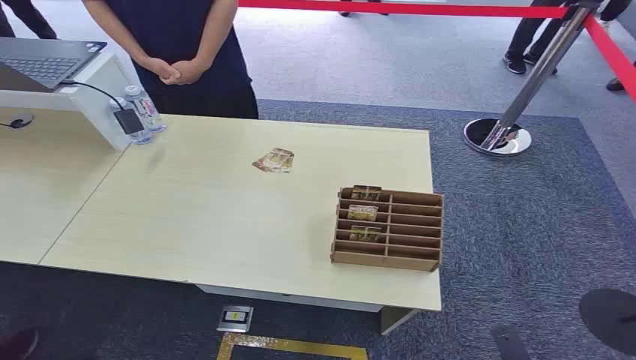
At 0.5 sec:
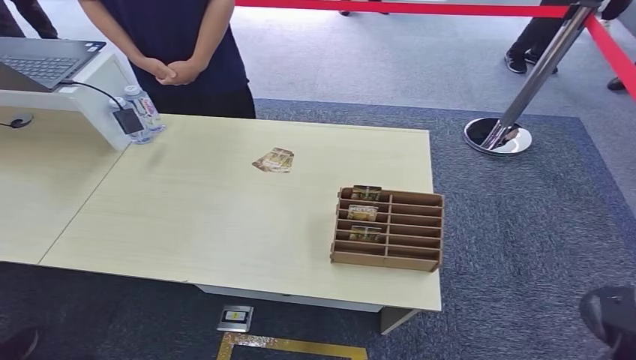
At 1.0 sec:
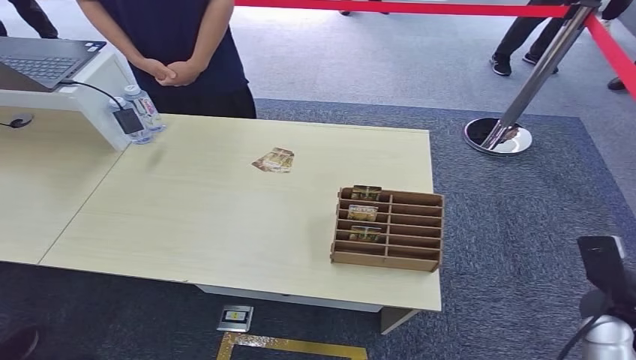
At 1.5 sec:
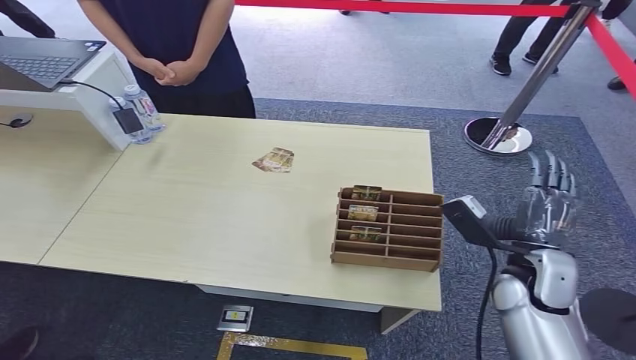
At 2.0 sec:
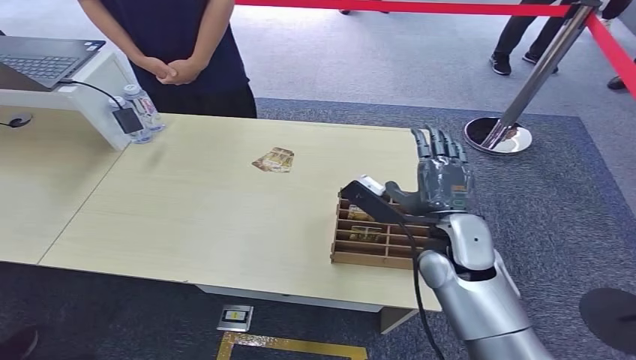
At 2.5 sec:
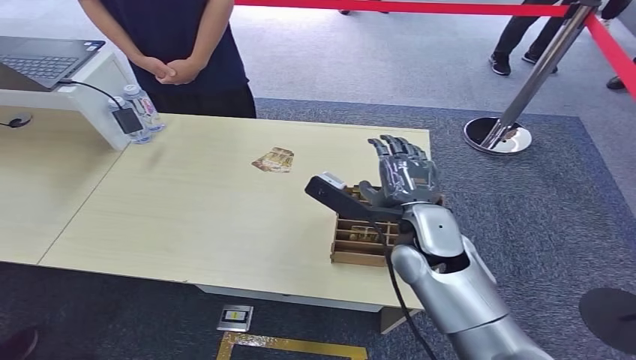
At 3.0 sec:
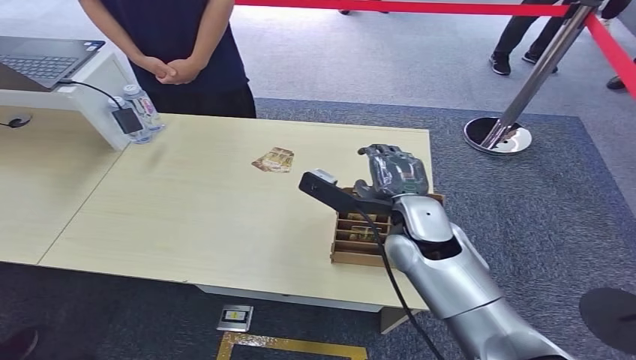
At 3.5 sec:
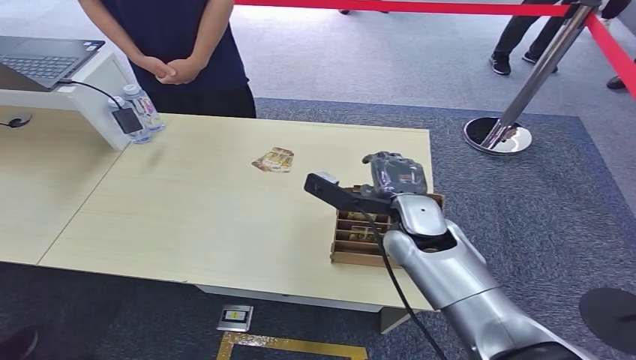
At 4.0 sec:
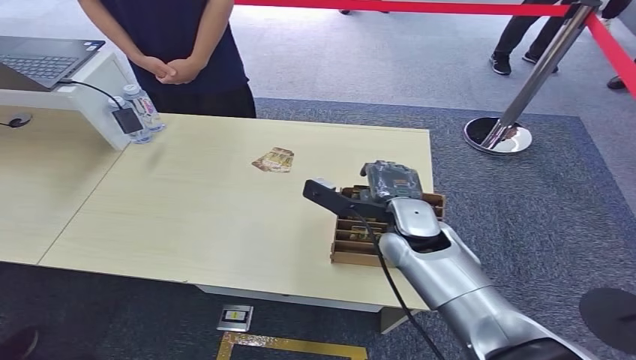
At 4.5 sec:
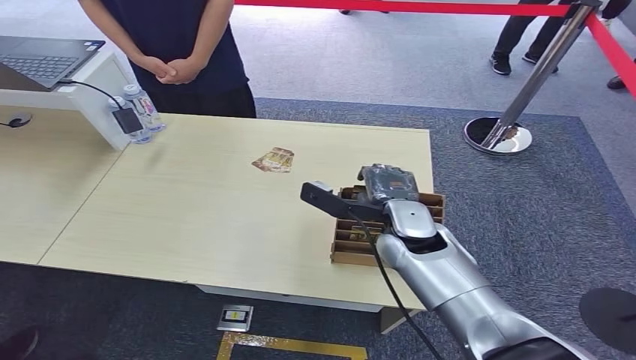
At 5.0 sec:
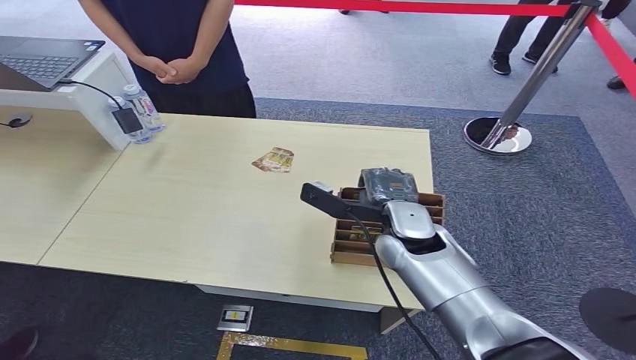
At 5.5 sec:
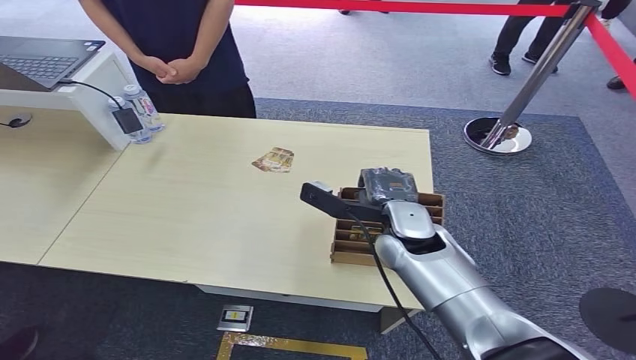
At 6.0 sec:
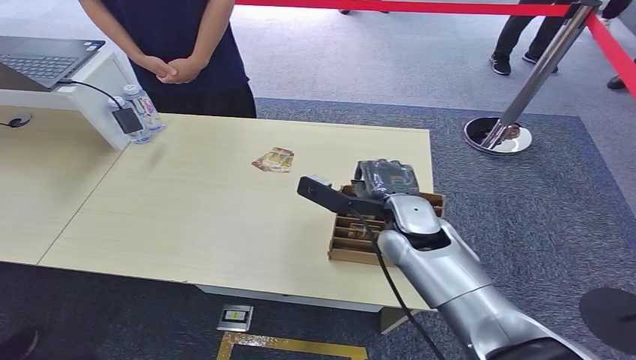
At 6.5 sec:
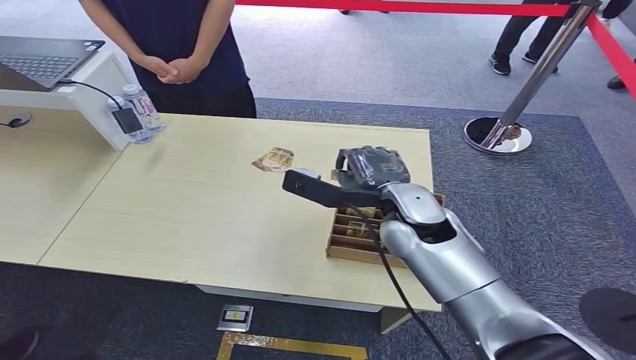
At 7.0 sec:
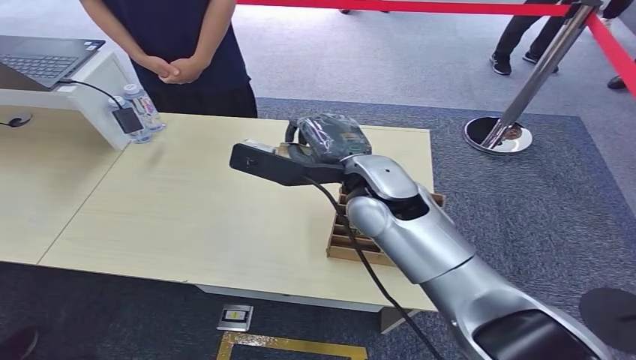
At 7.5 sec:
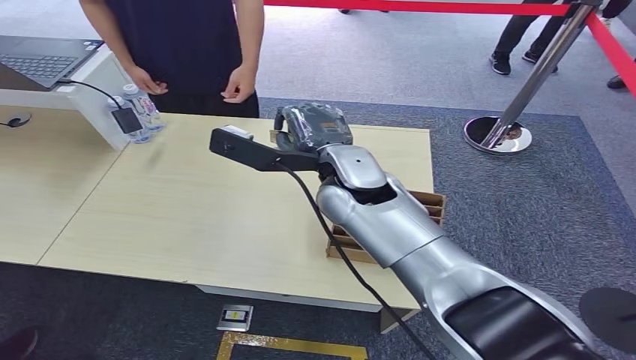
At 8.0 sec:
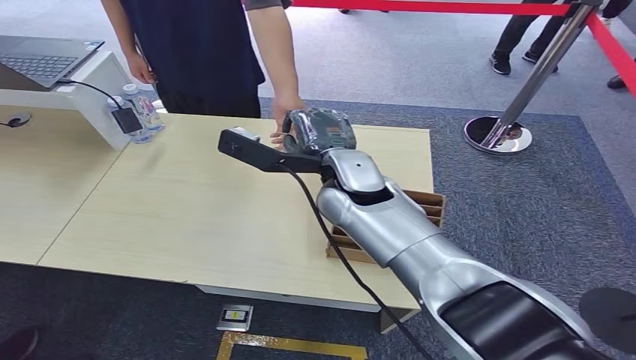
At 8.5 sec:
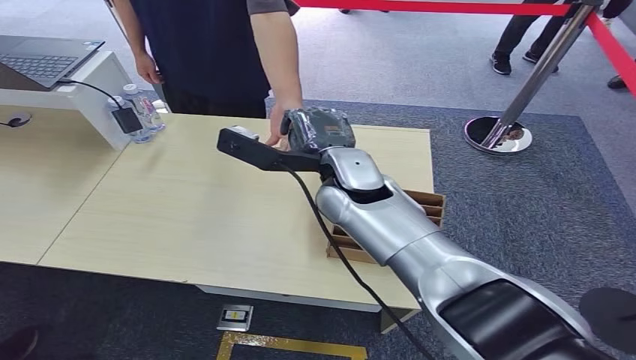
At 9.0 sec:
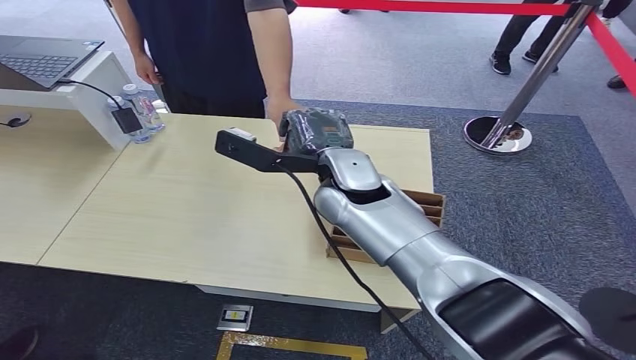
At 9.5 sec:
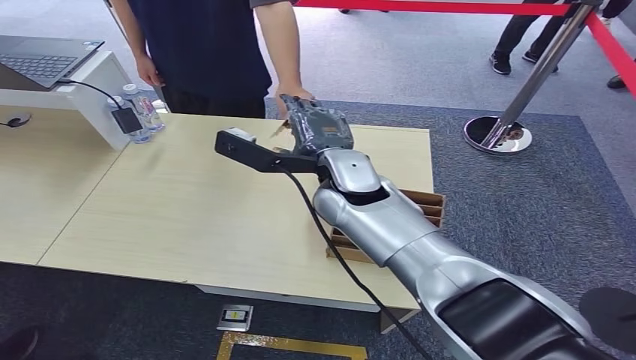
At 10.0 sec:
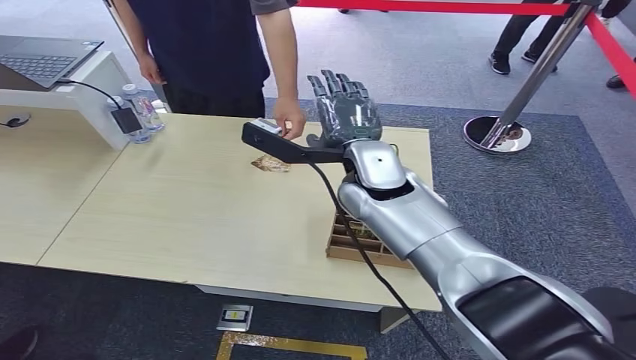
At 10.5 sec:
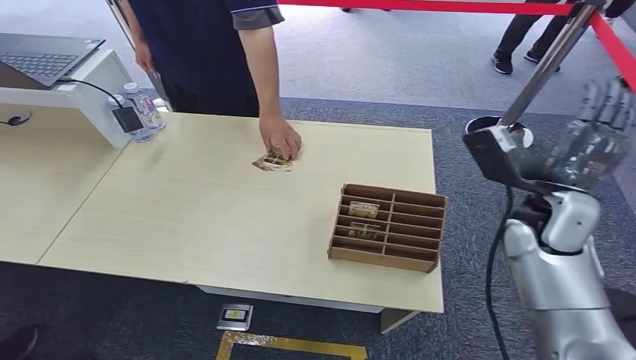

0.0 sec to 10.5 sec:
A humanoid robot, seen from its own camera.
Step, 0.0 sec to 6.5 sec: Pick up the room card from the card holder.
Step, 7.0 sec to 10.5 sec: Hand the room card to the target.
2.0 sec to 4.0 sec: The right hand shifts by about 5 cm.
4.0 sec to 6.5 sec: There are only small adjustments of the hands.
6.5 sec to 8.5 sec: The right hand shifts some 10 cm to the left and upward.
